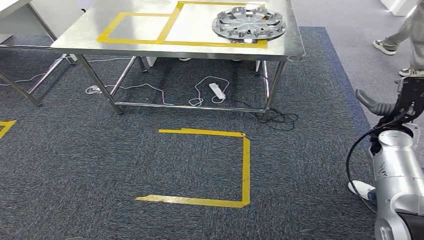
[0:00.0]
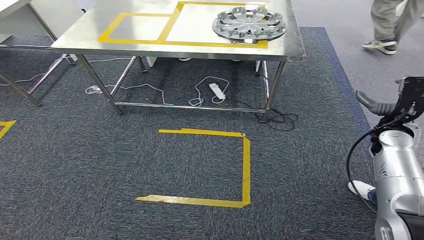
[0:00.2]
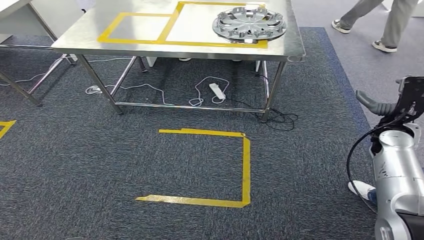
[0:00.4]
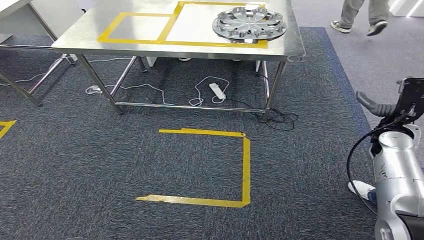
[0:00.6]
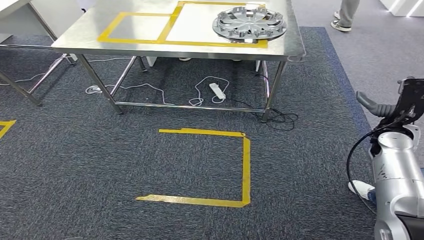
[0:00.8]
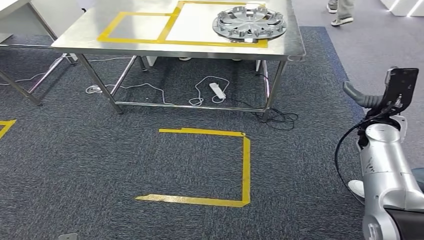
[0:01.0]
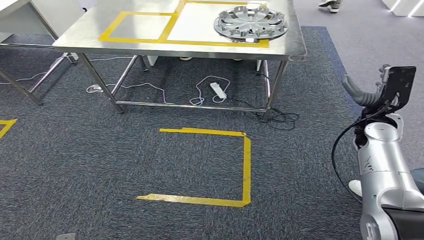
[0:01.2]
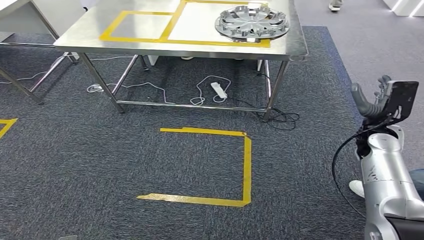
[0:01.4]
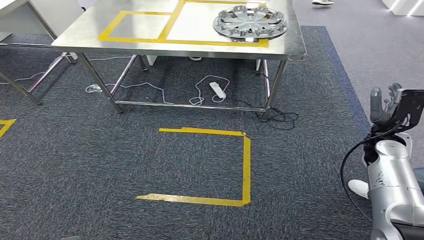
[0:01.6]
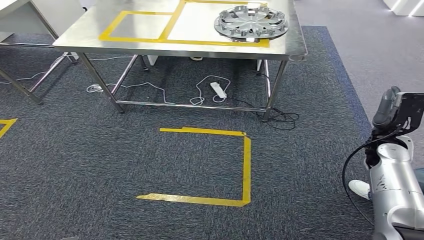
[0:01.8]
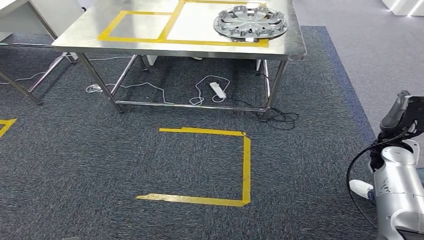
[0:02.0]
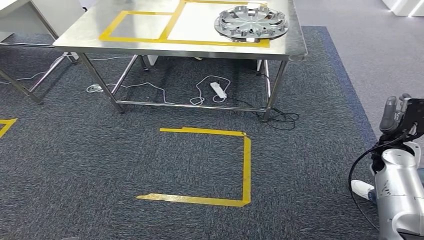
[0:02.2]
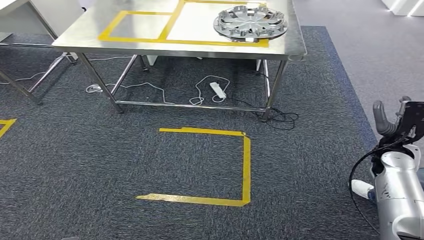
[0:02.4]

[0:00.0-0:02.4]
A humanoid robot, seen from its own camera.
Step, 0:00.0 to 0:02.2: Return to the initial position at the workbench.
0:00.0 to 0:01.2: The right hand changes place by some 5 cm.
0:01.2 to 0:02.4: The right hand shifts approximately 10 cm downward and backward.
